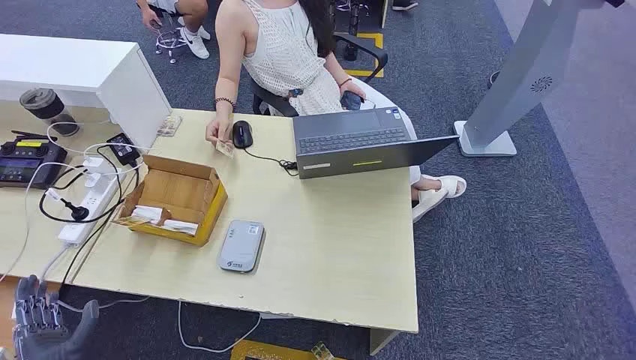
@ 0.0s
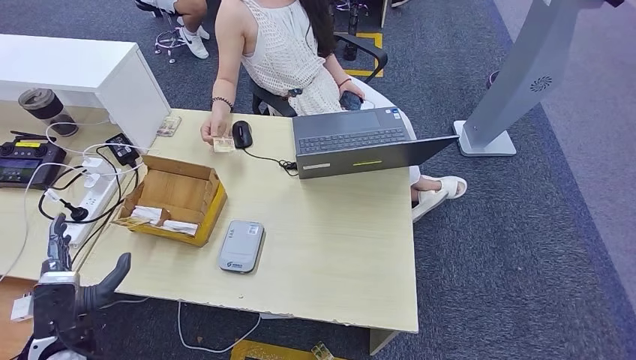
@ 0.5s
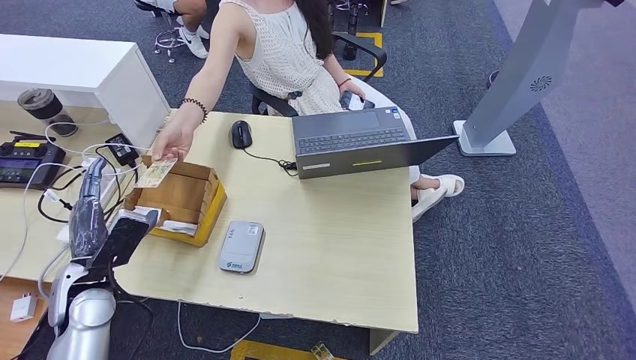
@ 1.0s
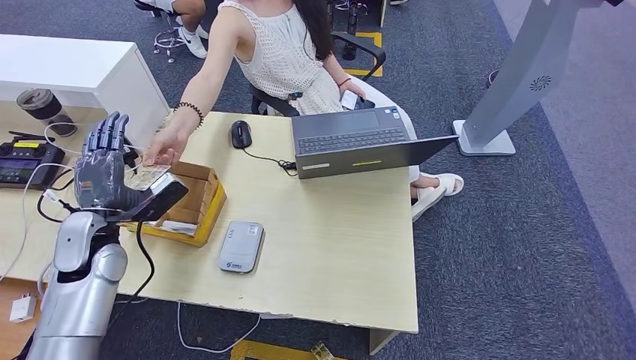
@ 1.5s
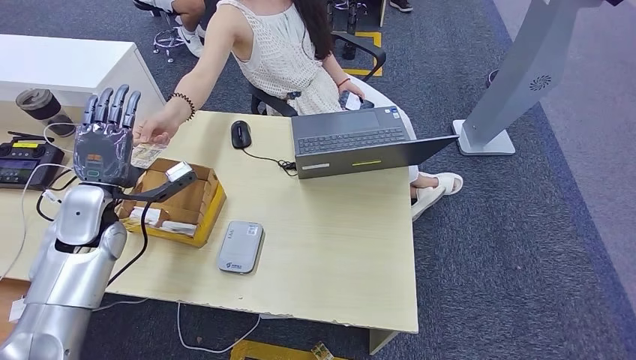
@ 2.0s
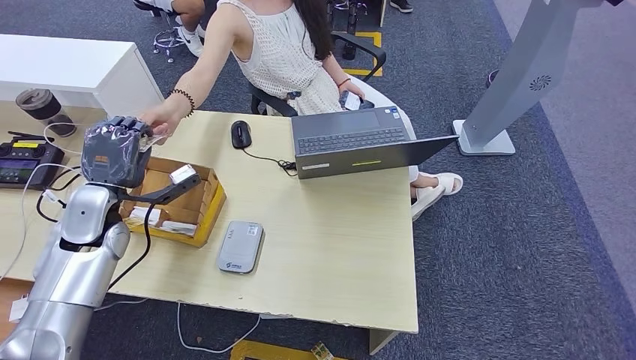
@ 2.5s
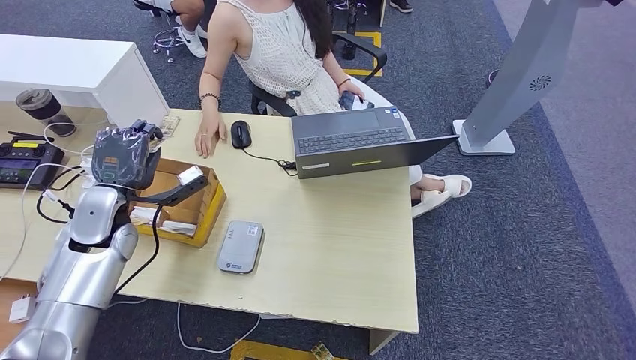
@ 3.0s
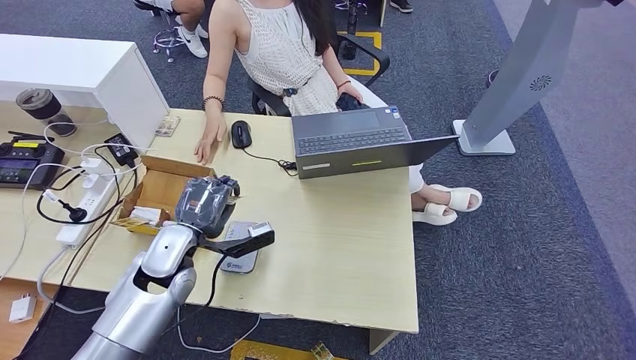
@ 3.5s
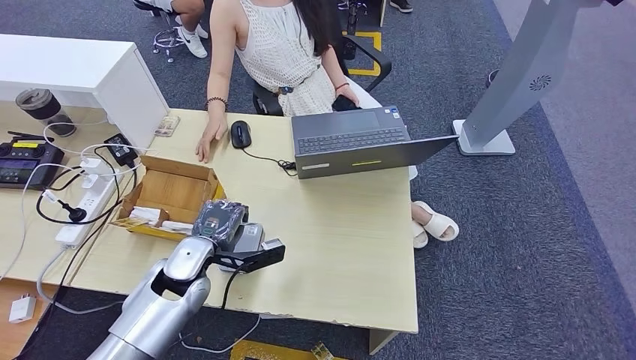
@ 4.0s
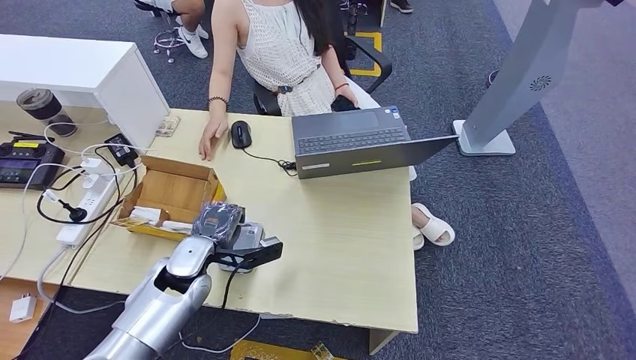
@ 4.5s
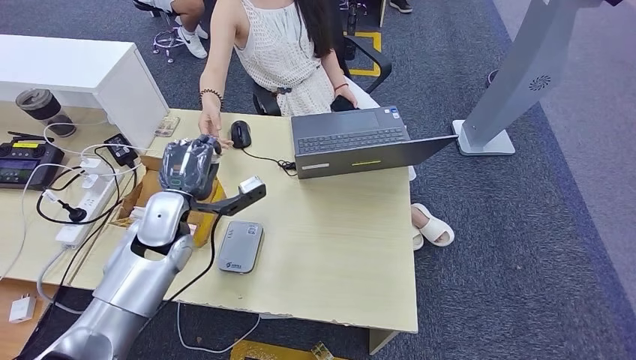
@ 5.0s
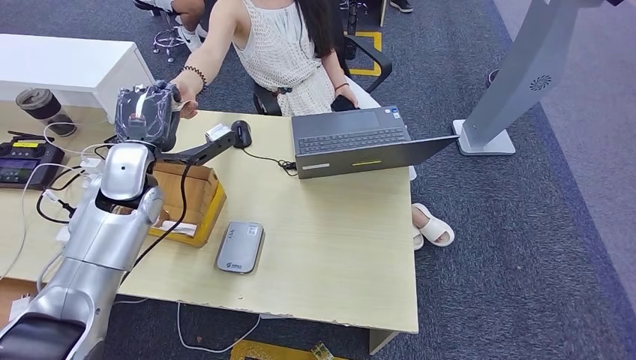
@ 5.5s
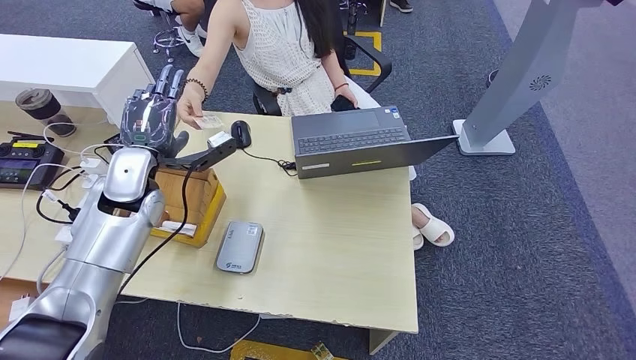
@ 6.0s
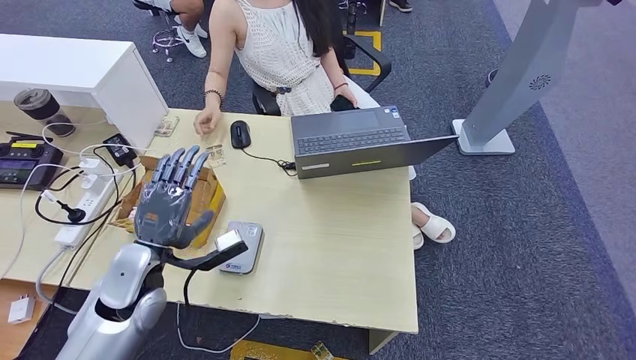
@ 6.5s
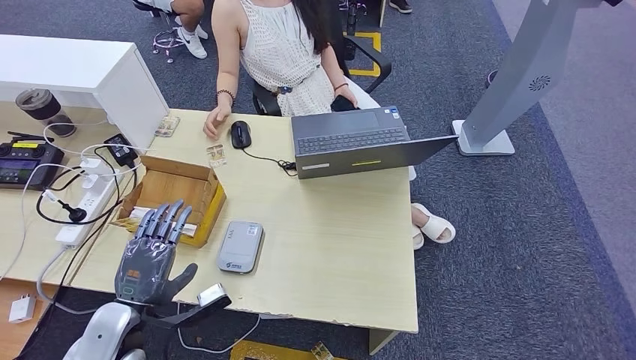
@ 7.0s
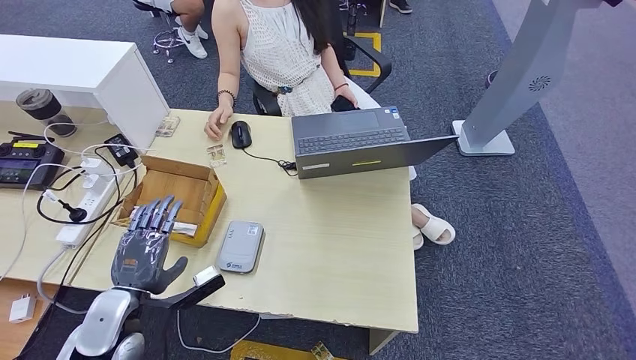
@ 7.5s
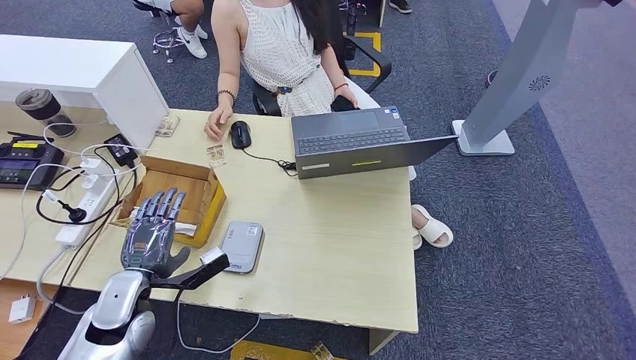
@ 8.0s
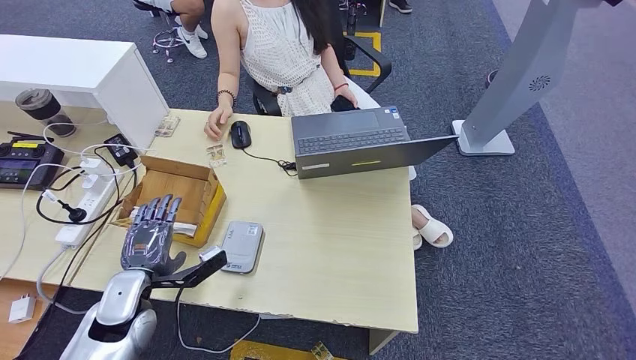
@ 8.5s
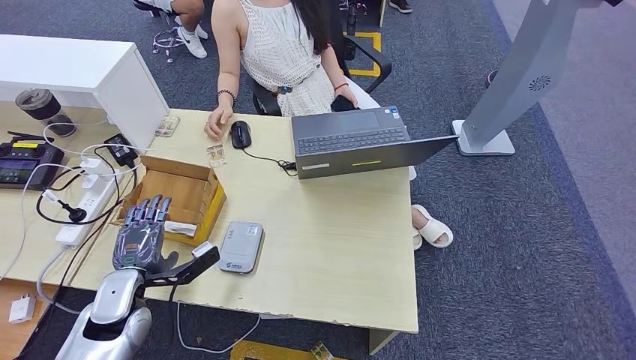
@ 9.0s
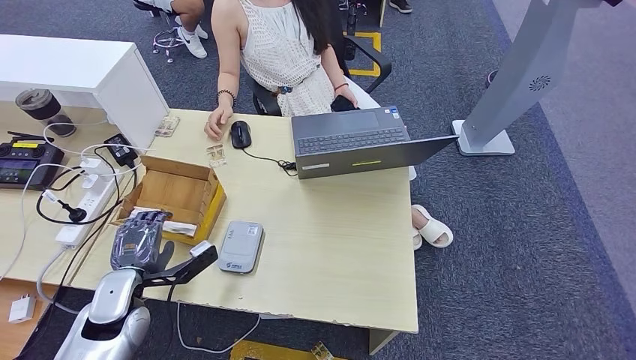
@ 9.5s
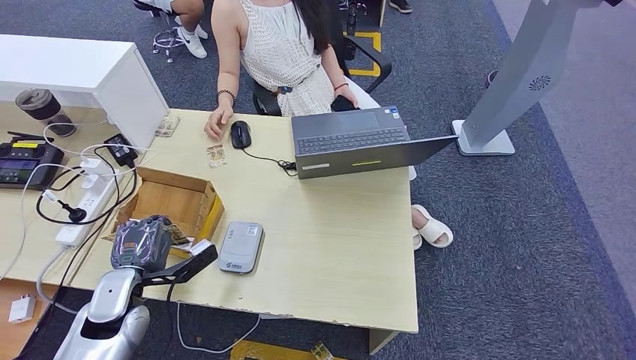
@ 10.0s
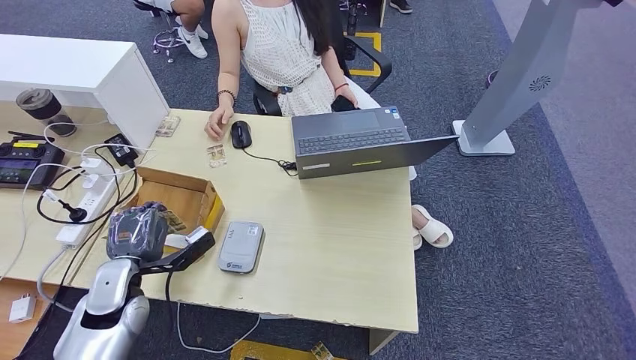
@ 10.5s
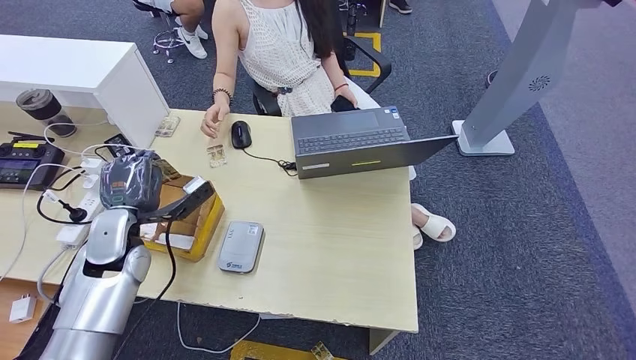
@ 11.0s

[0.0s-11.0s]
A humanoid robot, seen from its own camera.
Step, 0.0s to 2.5s: Take the ID card from the person's hand.
Step, 3.0s to 4.0s: Place the ID card on the card reader.
Step, 4.5s to 6.5s: Hand the ID card to the person.
Step, 7.0s to 10.0s: Pick up the room key from the key card box.
2.0s to 3.5s: The left hand is displaced to the right and downward by roughly 15 cm.
3.5s to 5.5s: The left hand is displaced upward and forward by about 15 cm.
5.5s to 7.5s: The left hand heads backward and downward, covering approximately 25 cm.
7.5s to 9.0s: The hands move only a little.
9.0s to 11.0s: The left hand moves forward and upward, some 10 cm.

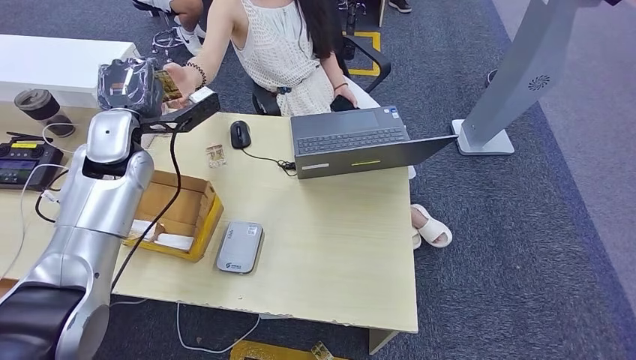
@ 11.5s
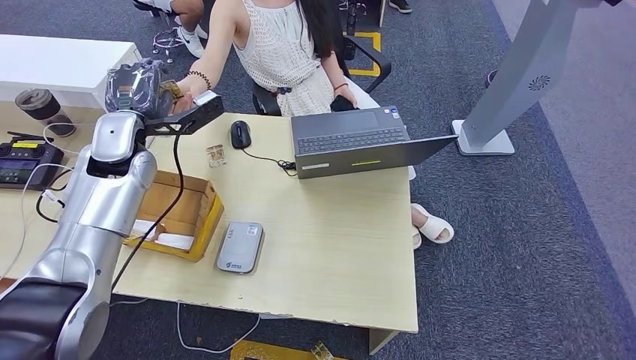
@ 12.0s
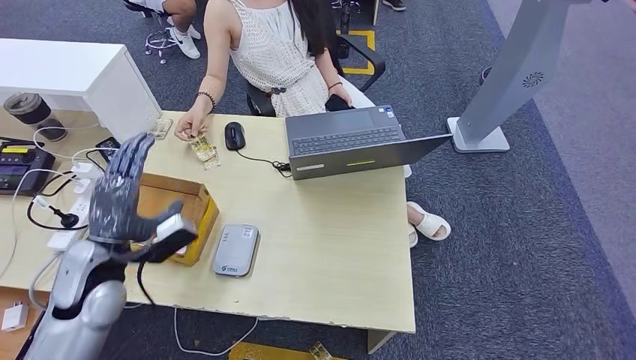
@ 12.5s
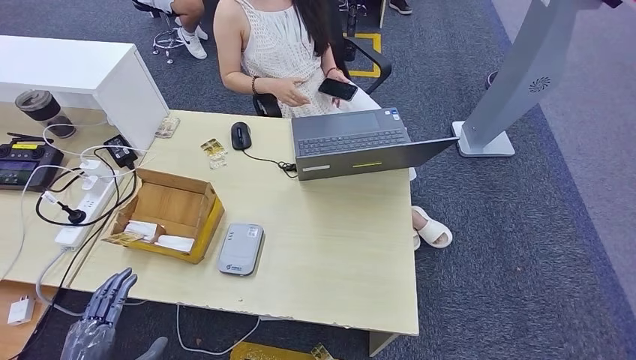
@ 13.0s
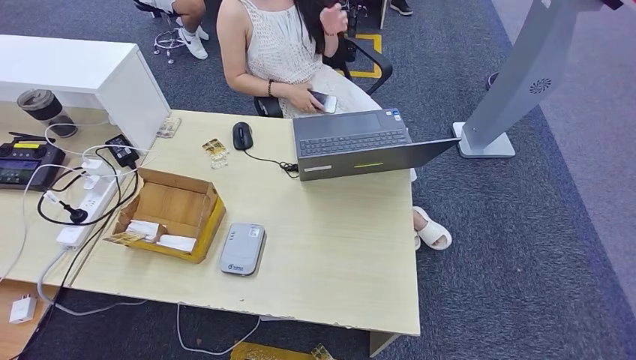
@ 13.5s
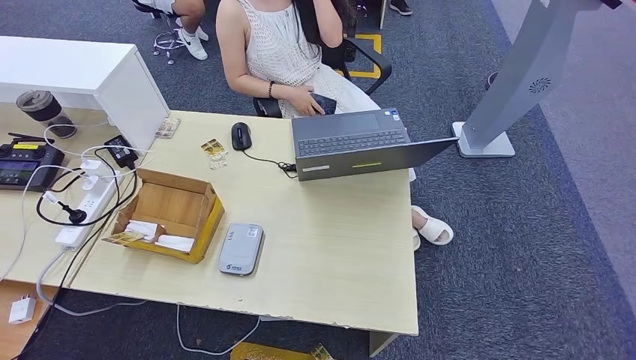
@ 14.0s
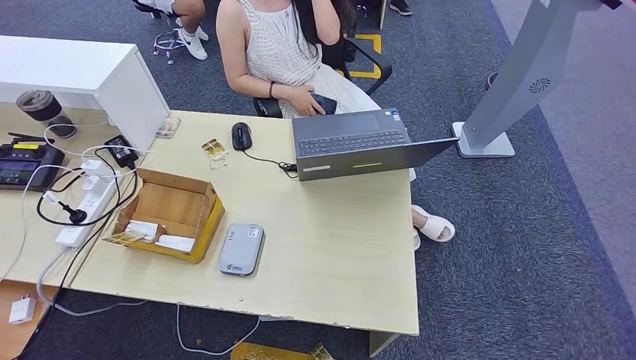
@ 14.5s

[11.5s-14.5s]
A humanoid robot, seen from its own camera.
Step, 11.5s to 14.5s: Hand the room key to the person.
11.5s to 13.0s: The left hand shifts some 40 cm backward and downward.
13.0s to 14.5s: The right hand shifts by some 5 cm. Meanwhile the left hand is displaced downward by approximately 25 cm.
